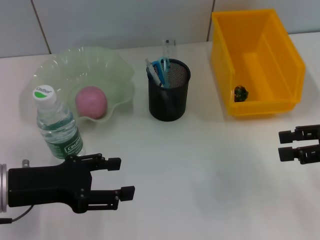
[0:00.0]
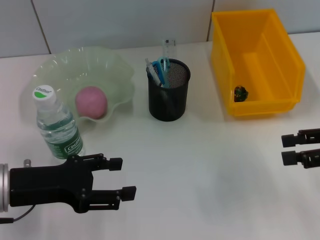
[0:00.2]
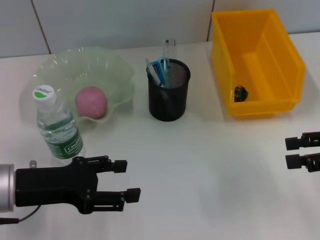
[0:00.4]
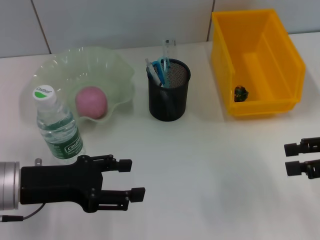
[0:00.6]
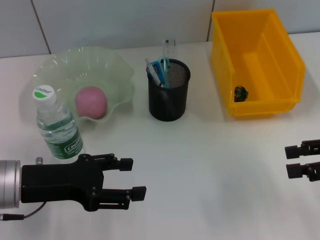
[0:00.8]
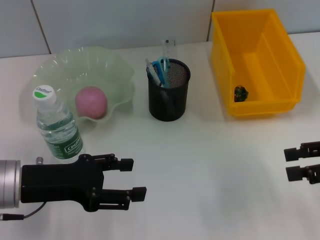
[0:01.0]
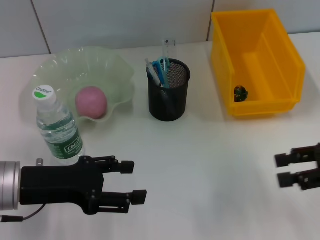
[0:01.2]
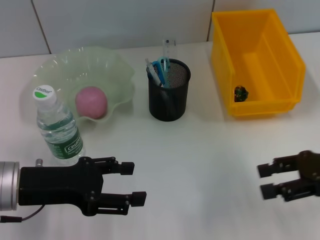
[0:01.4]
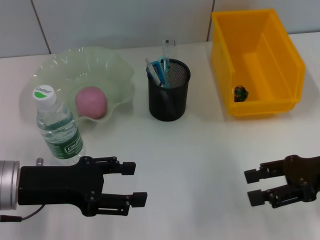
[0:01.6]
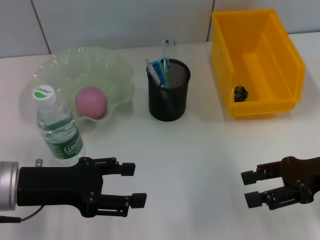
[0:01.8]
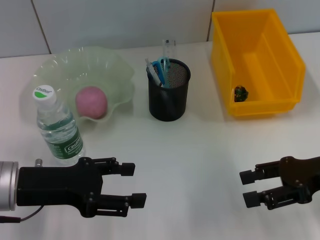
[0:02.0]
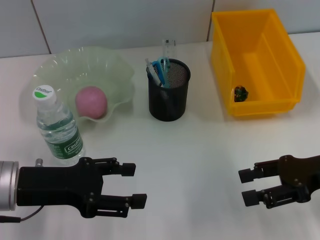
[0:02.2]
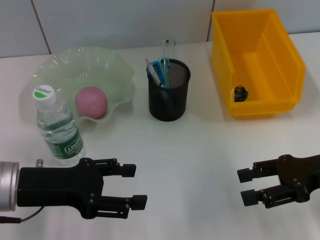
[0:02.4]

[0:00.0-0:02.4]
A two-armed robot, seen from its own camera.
0:00.0 to 0:01.2: There are only small adjustments of the grippers.
0:01.2 to 0:02.4: There are only small adjustments of the grippers.
